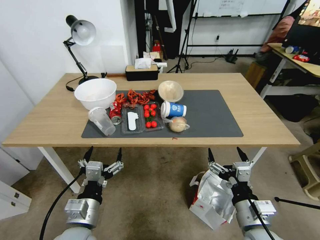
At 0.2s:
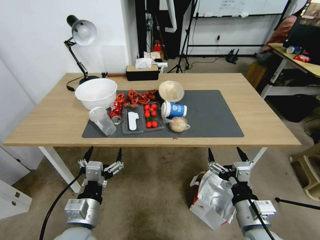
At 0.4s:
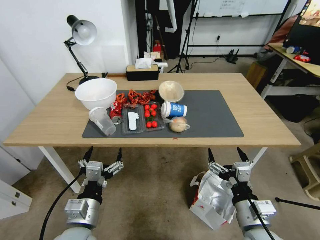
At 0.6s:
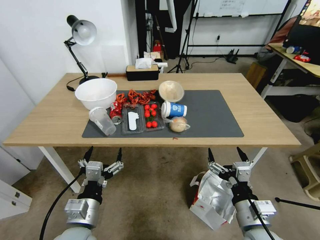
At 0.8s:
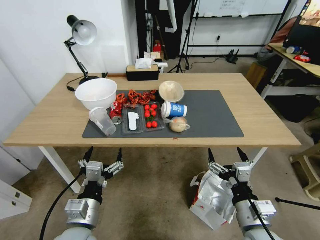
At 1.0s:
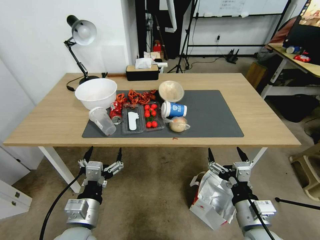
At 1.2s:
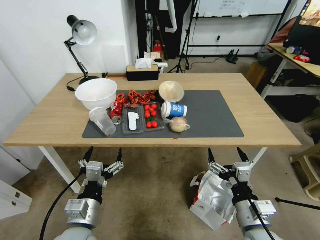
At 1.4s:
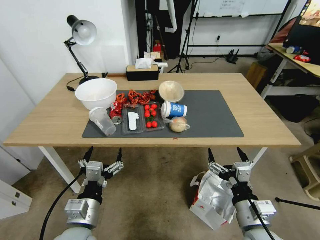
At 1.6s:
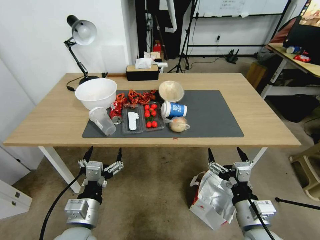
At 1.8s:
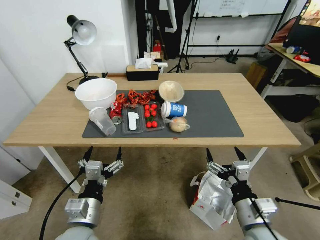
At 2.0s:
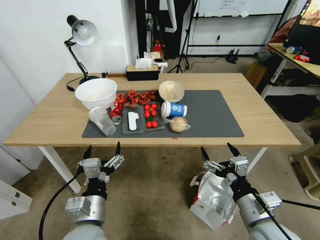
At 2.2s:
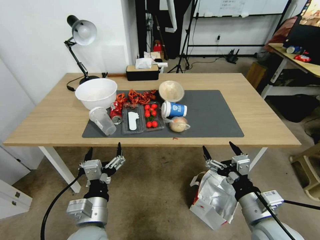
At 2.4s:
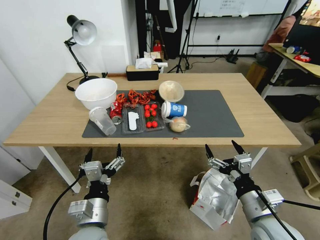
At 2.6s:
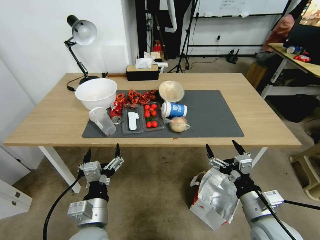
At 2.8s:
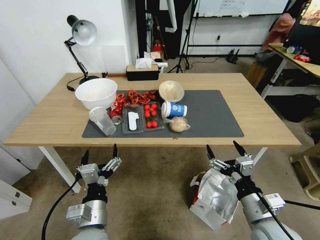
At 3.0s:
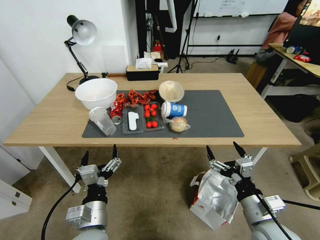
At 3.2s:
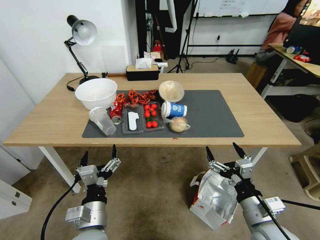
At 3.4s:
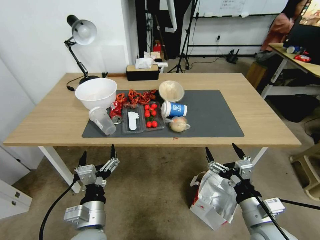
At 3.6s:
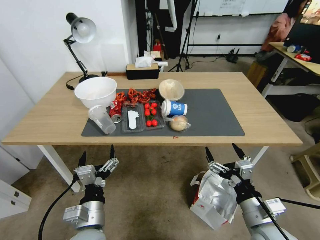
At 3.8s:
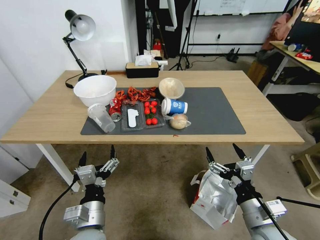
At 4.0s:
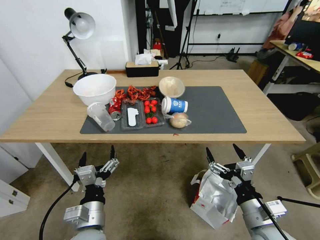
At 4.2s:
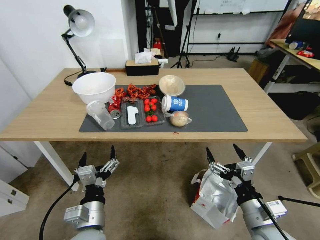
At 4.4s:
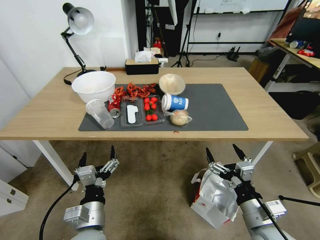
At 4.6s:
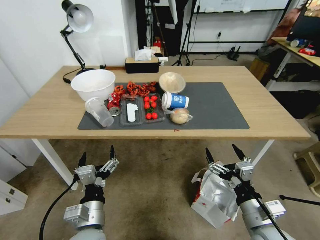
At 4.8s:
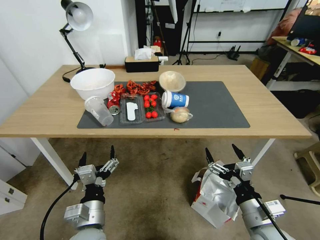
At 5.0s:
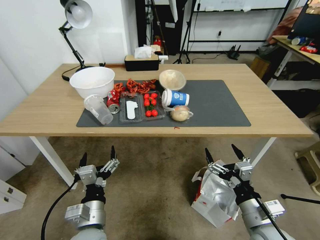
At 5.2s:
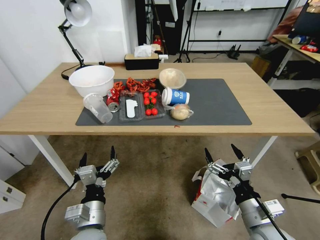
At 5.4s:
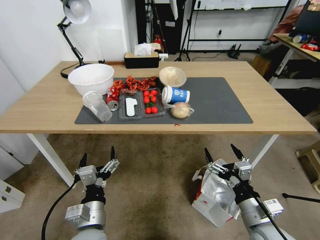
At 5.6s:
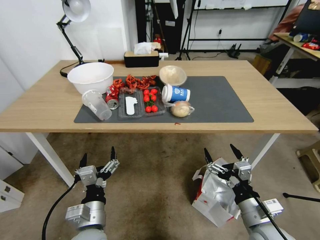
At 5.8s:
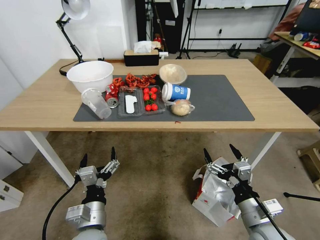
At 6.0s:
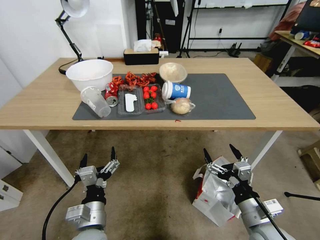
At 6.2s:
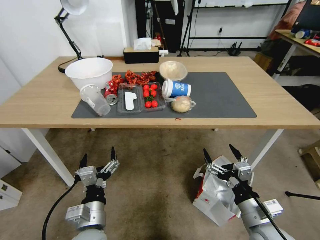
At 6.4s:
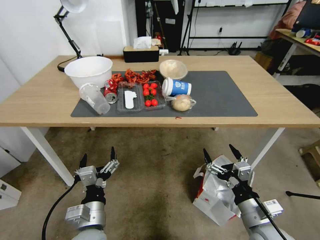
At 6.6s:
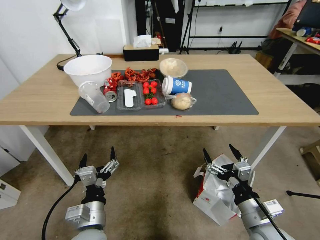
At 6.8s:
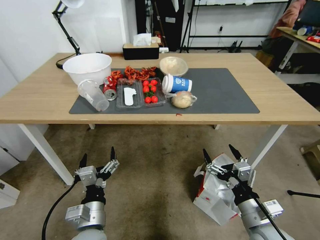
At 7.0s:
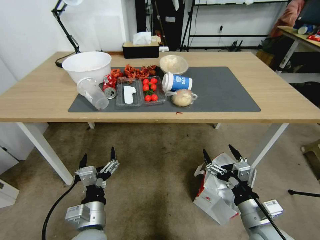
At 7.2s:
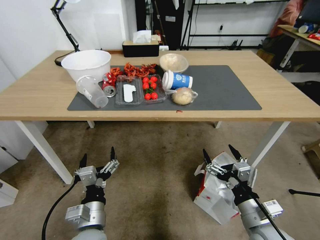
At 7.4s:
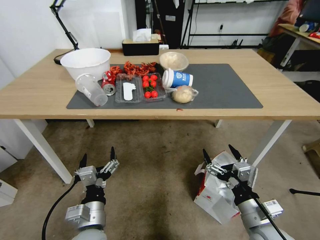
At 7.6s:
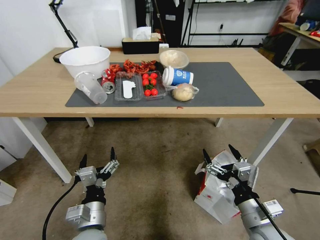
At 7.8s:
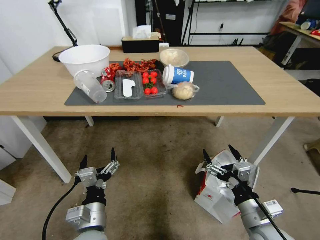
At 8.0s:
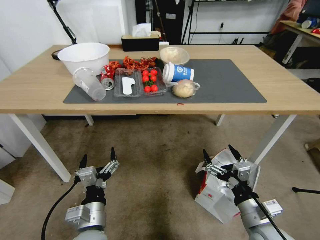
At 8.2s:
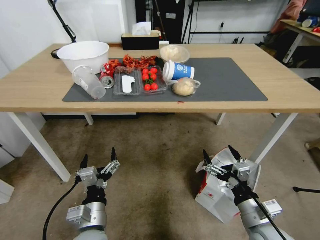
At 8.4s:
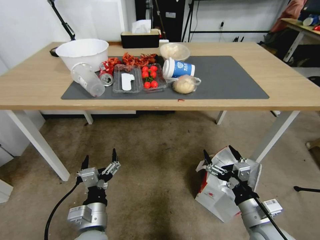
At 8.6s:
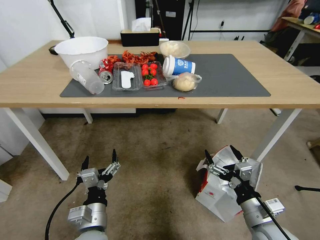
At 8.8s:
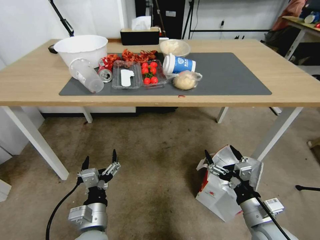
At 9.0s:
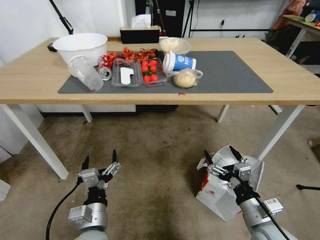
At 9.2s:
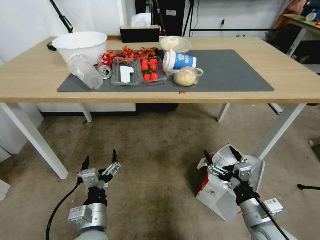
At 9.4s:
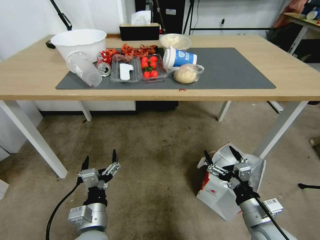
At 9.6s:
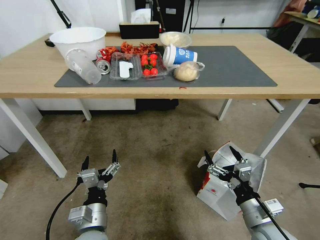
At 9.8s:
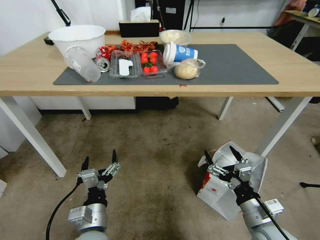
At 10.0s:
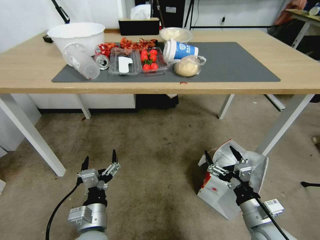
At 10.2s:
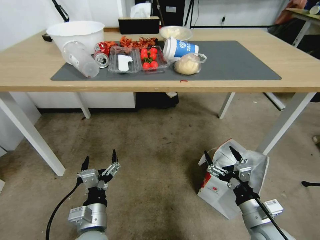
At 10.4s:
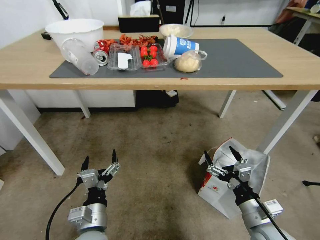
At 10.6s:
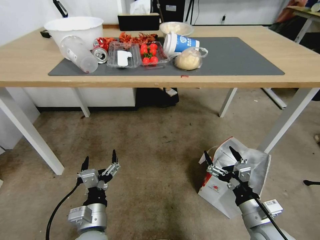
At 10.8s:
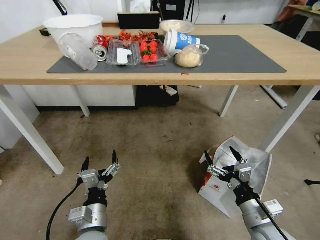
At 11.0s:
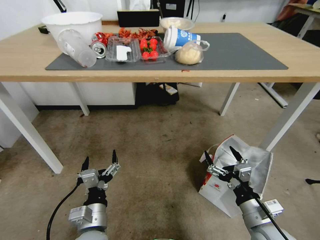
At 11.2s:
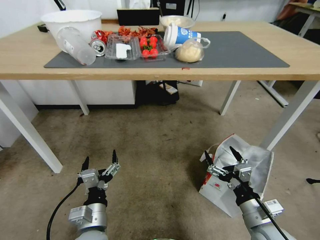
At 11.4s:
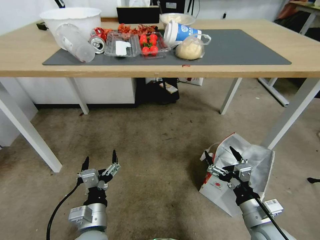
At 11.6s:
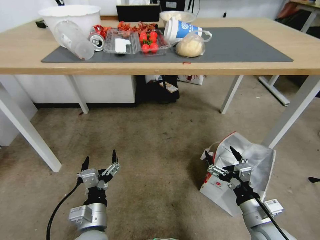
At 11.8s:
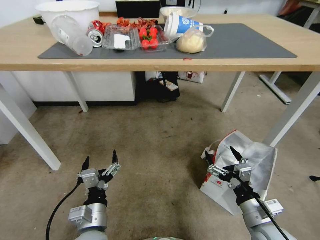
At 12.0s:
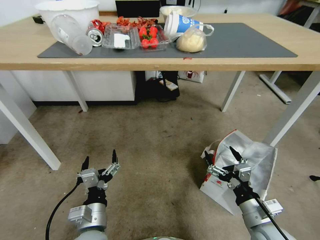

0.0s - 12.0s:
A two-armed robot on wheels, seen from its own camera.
Task of the whole recording: Pick up the food delivery bag from the floor and place it on the table.
1.6s - 3.0s: The grippers make only small movements.

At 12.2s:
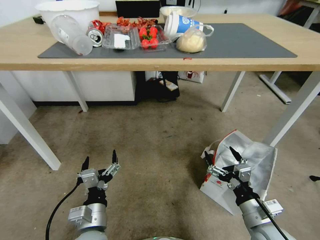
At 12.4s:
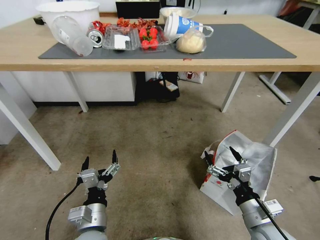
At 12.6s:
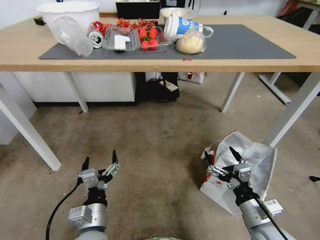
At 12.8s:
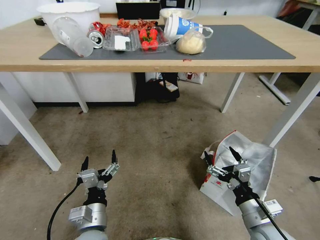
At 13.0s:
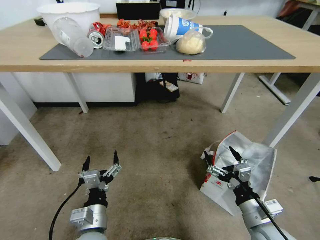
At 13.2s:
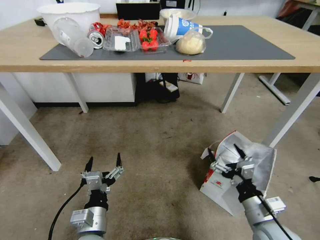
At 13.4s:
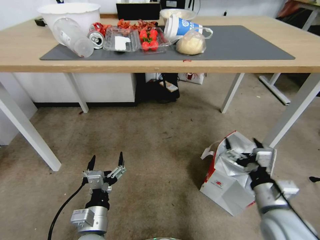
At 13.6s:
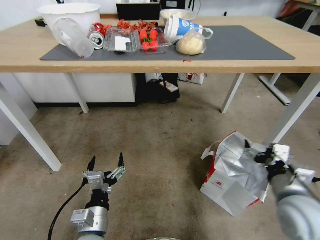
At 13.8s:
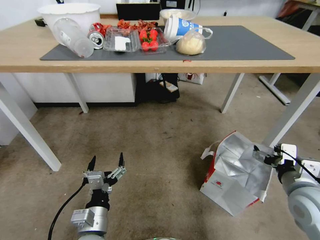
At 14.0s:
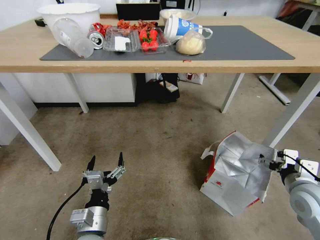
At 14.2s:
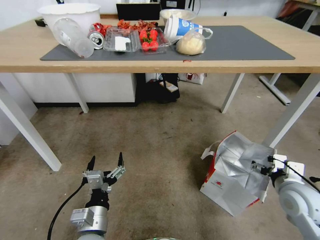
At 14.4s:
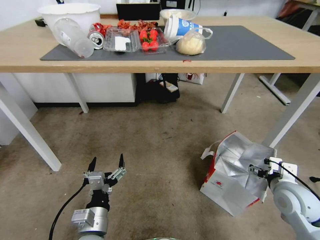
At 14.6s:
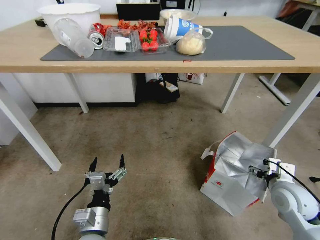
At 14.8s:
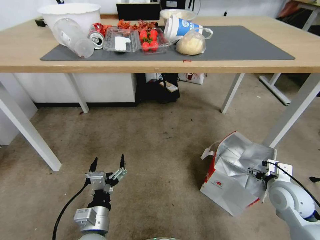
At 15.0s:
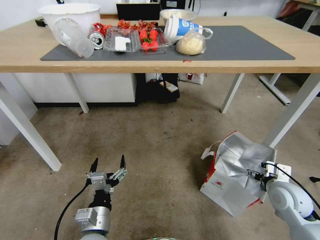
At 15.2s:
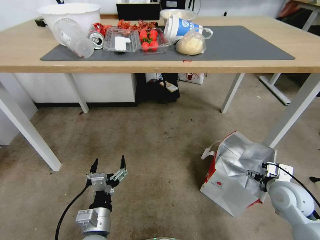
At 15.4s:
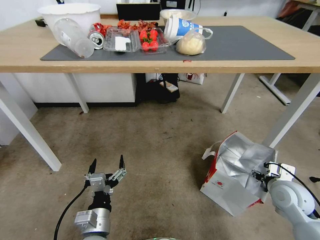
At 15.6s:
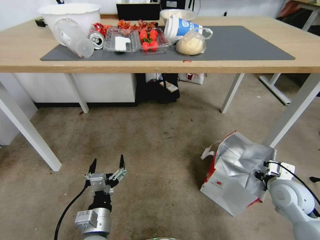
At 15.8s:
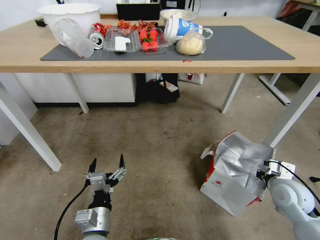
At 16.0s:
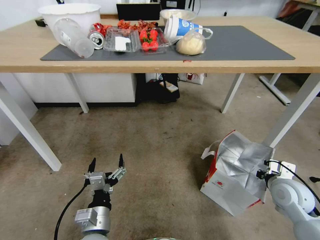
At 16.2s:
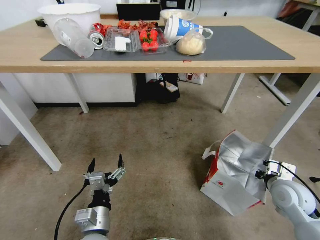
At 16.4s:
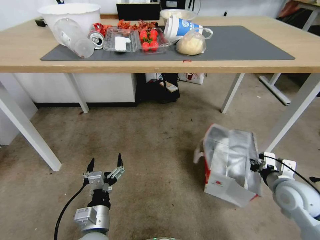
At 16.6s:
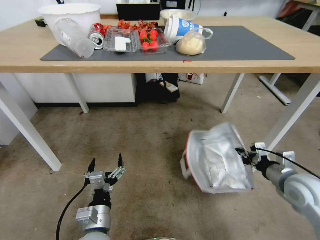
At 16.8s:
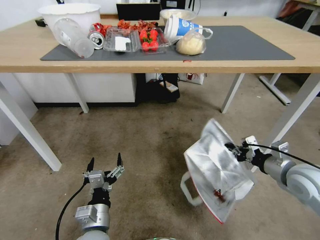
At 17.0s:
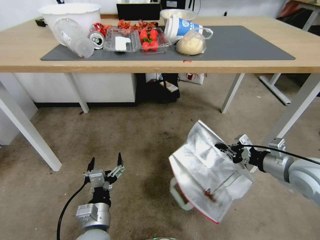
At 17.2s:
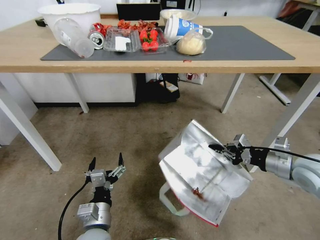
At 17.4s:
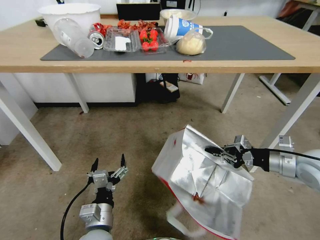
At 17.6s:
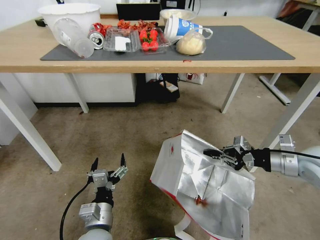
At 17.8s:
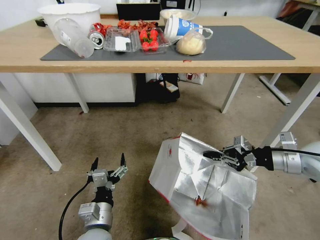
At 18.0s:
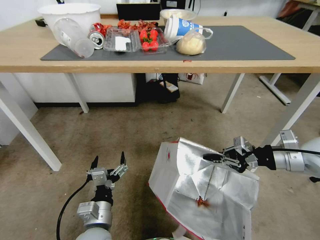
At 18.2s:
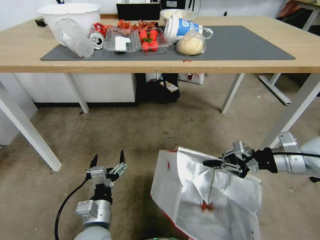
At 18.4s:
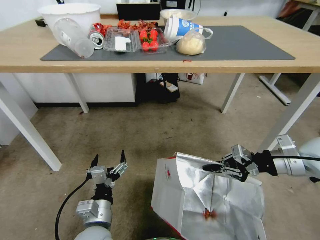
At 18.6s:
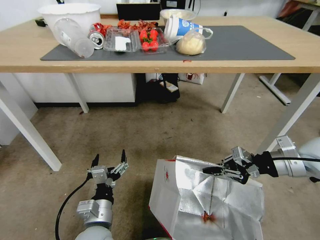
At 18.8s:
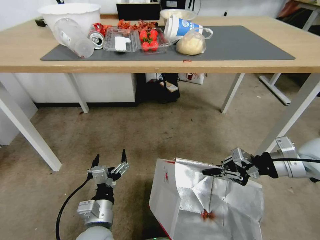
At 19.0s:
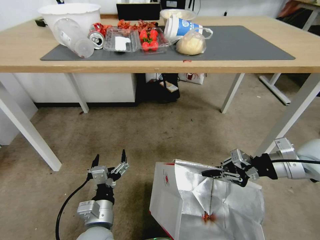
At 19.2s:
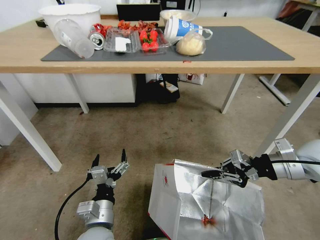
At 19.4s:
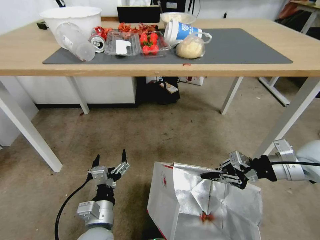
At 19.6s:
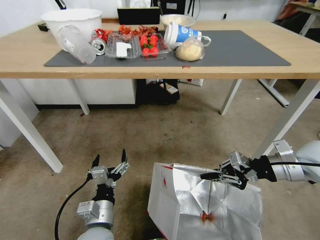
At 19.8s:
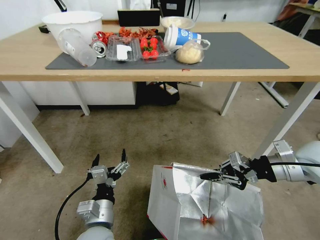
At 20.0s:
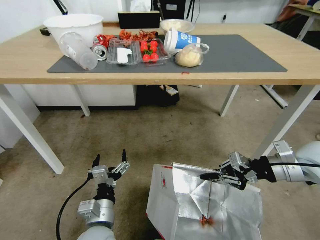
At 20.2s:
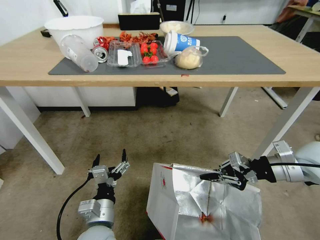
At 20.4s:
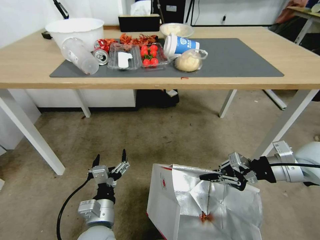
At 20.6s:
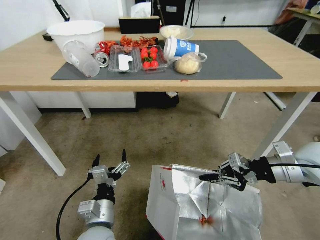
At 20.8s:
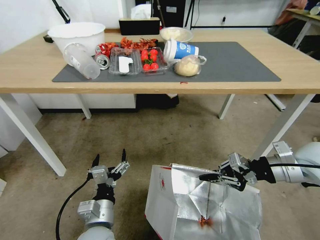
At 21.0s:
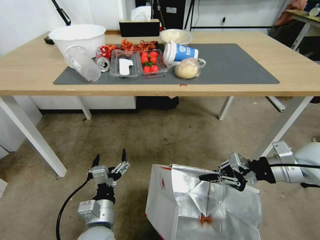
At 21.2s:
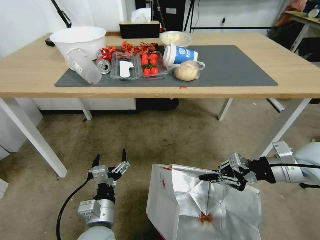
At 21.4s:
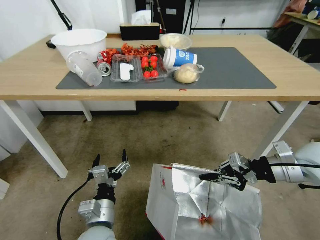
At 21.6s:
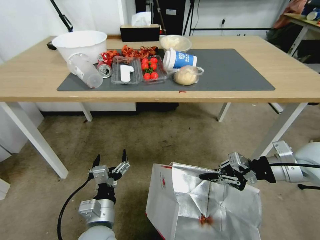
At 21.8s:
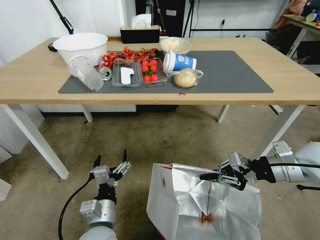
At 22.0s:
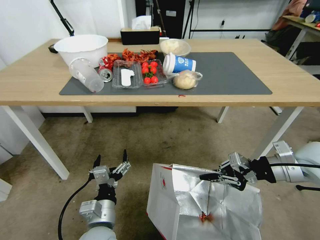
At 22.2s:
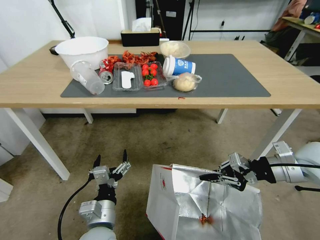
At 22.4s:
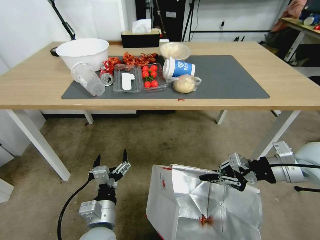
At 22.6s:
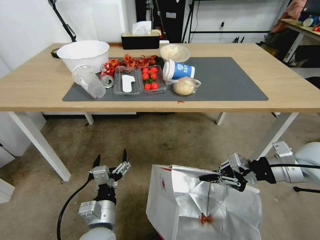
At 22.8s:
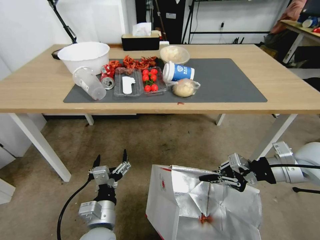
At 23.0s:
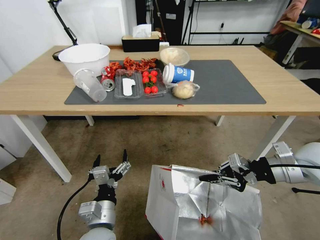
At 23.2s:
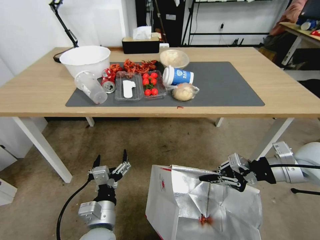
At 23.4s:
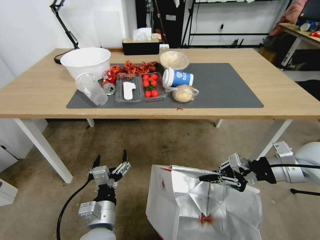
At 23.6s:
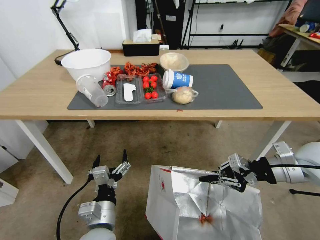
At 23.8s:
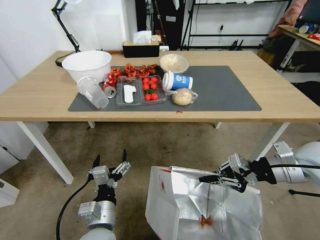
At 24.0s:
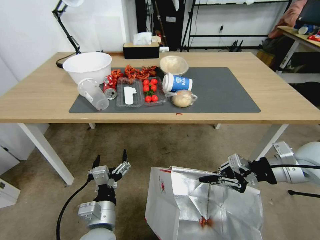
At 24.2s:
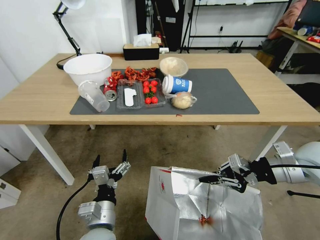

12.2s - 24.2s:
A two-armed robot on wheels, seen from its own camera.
Task of the whole recording: Pick up the food delivery bag from the floor and place it on the table.
12.2s - 13.8s: The right gripper moves to the right, upward and forward, some 15 cm.
13.8s - 15.2s: The right gripper is displaced downward by roughly 10 cm.
15.2s - 16.6s: The right gripper travels upward by some 5 cm, and closes its fingers.
16.6s - 18.2s: The right gripper shifts about 10 cm upward.
